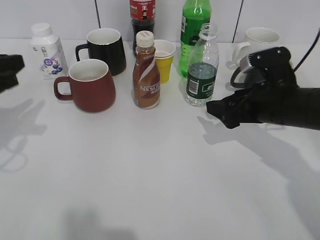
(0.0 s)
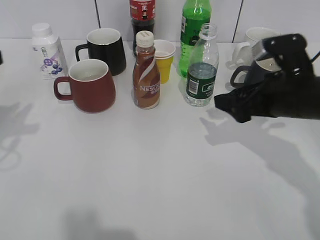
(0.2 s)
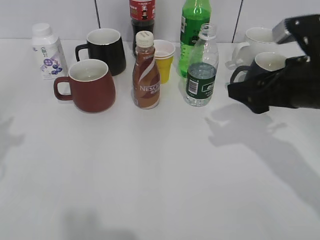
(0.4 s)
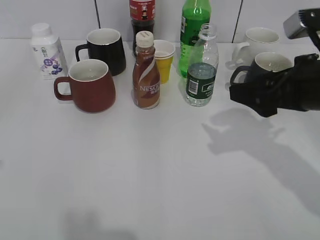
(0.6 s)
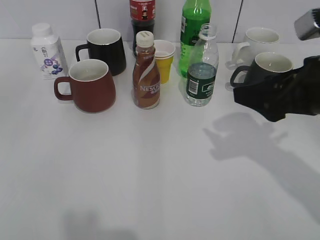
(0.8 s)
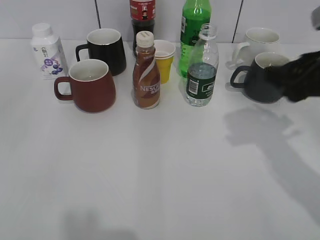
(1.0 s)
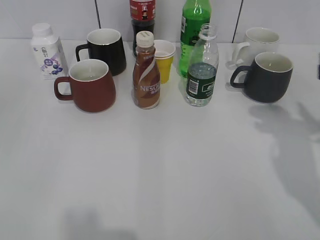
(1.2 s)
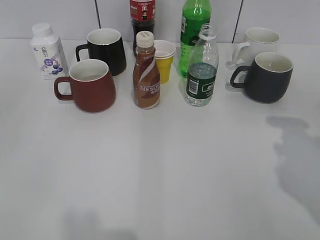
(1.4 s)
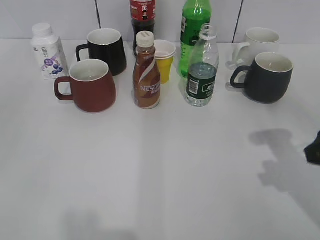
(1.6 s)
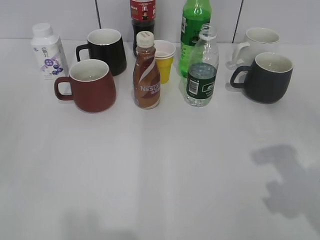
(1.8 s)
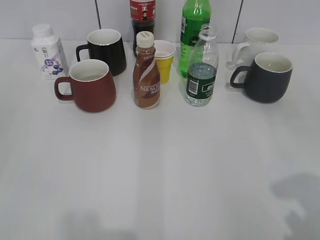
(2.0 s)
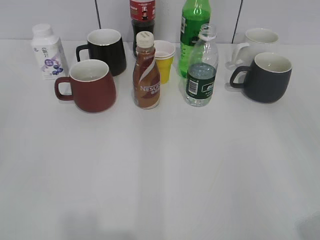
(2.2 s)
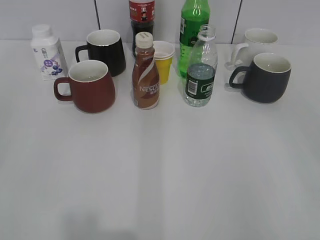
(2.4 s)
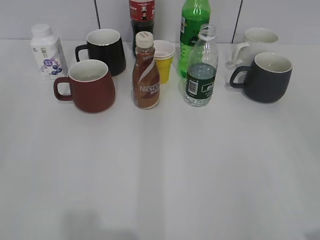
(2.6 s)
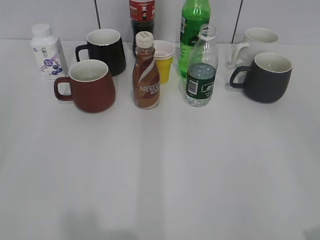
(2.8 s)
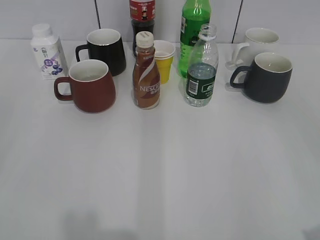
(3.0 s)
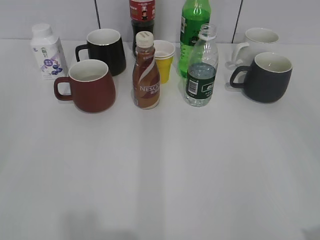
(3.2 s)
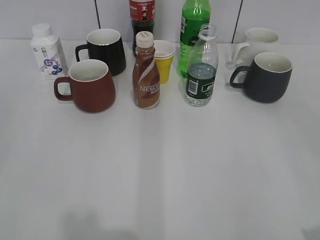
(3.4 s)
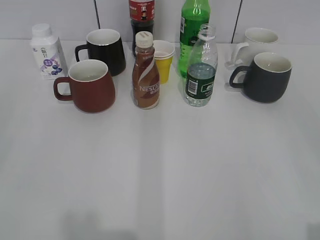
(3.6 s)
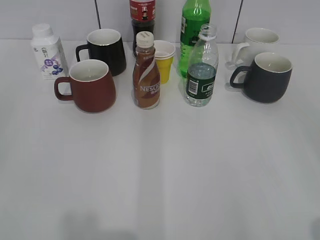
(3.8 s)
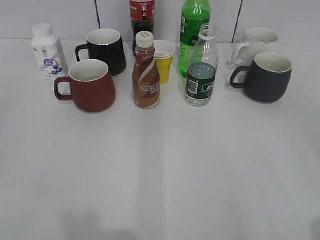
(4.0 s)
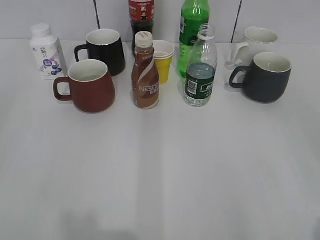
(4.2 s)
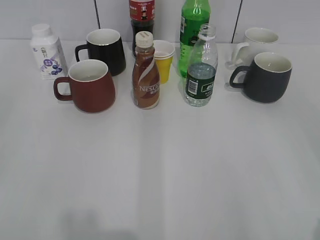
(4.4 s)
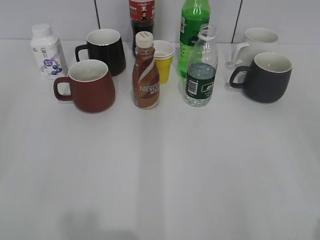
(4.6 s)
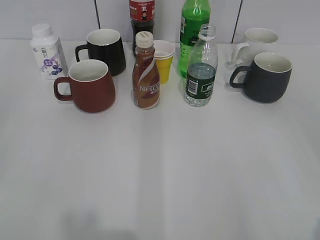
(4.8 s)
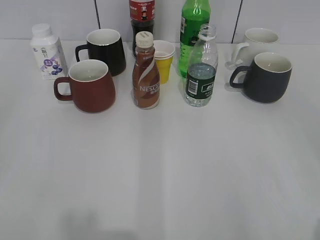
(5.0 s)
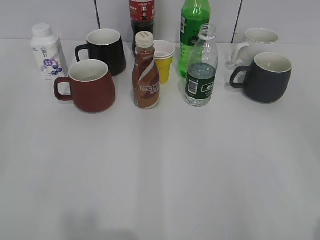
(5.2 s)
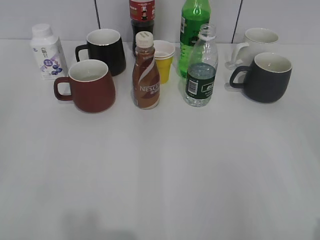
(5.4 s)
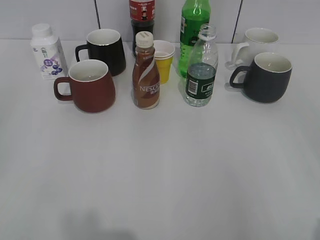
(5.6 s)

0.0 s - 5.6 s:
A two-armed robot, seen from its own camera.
0.0 s - 1.4 s: The left gripper heads backward and upward, covering approximately 25 cm. The right gripper heads to the right, backward and upward, covering approximately 15 cm.
1.4 s - 2.8 s: The right gripper travels backward by about 20 cm.
4.2 s - 5.6 s: Both grippers stay about where they are.
